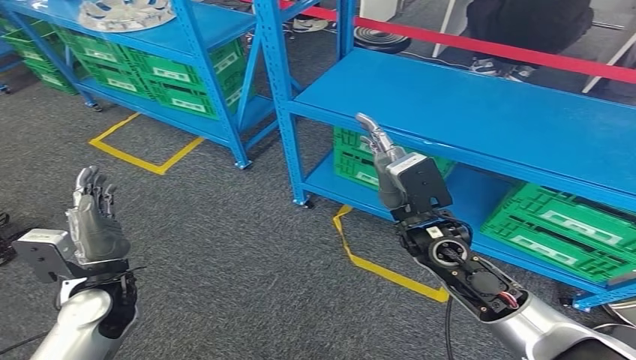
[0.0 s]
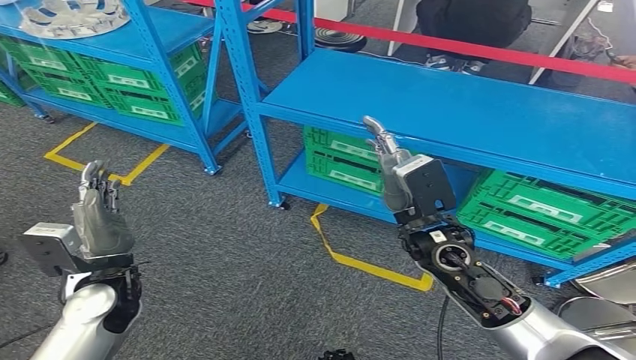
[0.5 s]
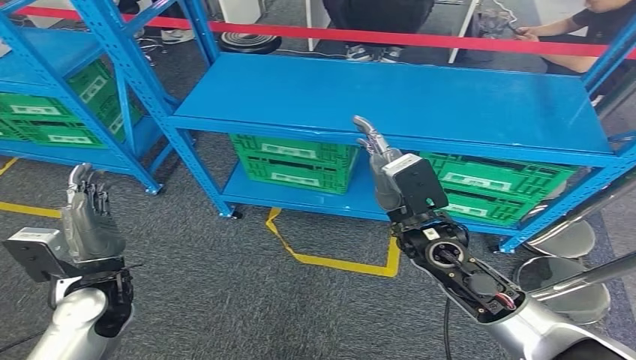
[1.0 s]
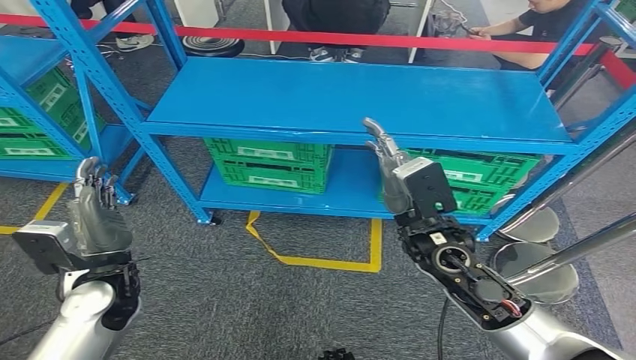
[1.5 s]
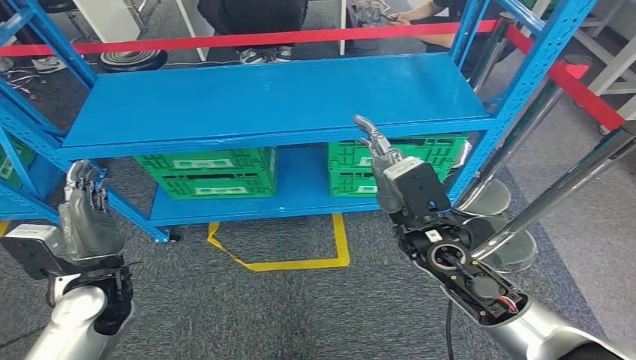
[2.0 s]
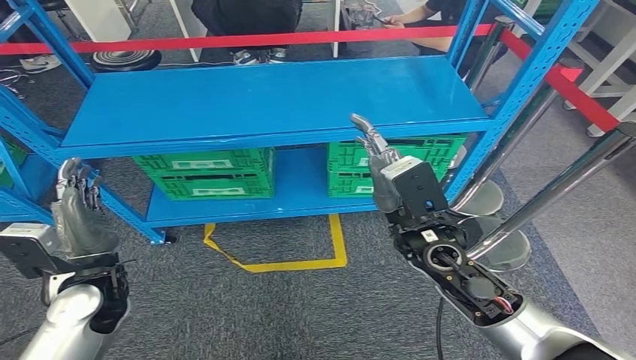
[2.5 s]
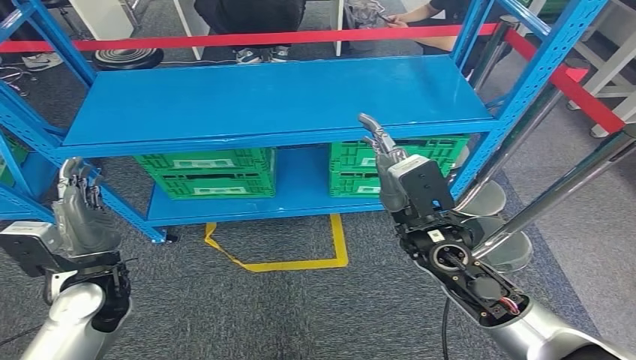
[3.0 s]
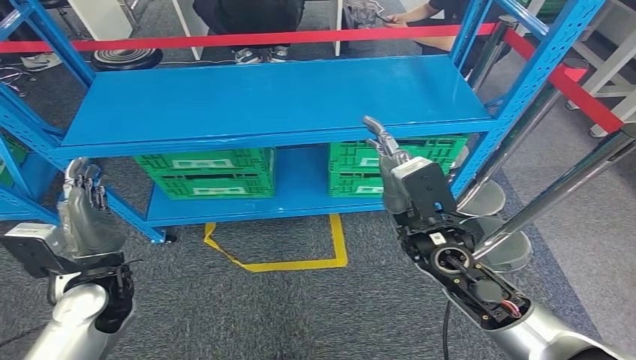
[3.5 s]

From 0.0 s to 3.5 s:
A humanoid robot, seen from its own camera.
Step, from 0.0 s to 3.5 s: Move to the initial position of the workbench.
From 2.0 s to 3.5 s: Neither hand changes place.
